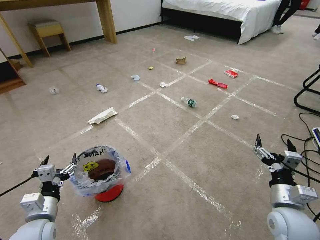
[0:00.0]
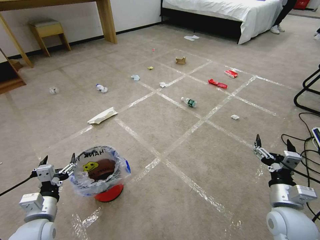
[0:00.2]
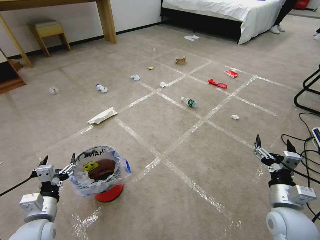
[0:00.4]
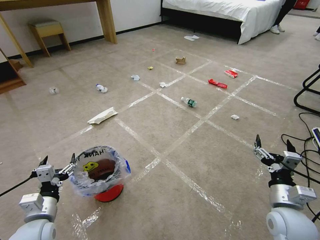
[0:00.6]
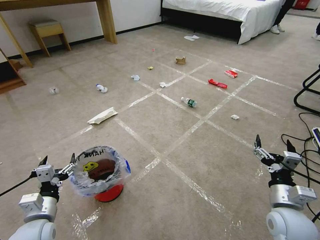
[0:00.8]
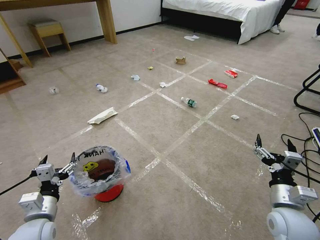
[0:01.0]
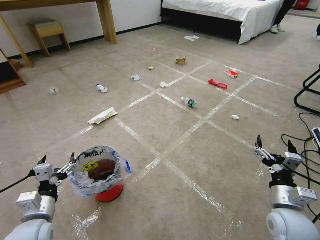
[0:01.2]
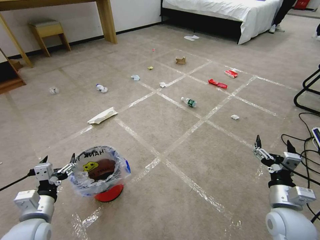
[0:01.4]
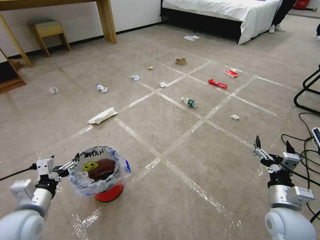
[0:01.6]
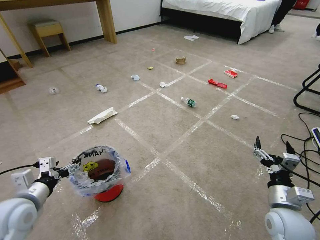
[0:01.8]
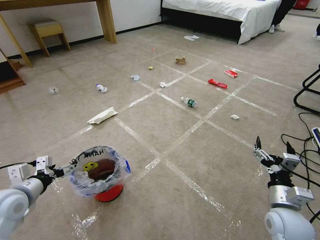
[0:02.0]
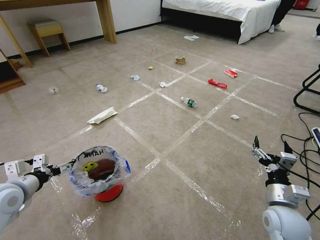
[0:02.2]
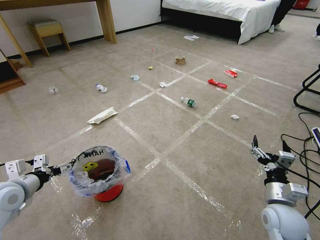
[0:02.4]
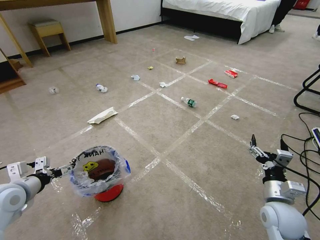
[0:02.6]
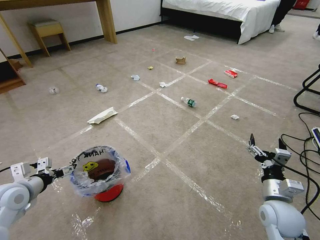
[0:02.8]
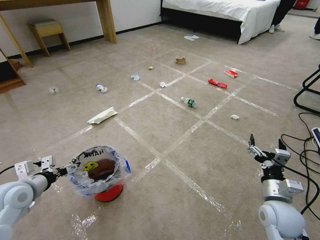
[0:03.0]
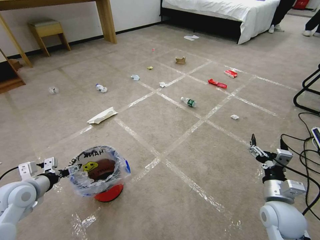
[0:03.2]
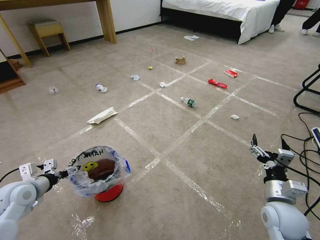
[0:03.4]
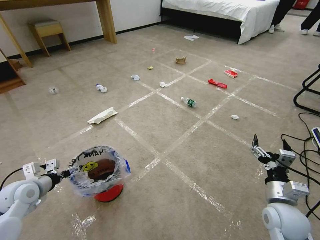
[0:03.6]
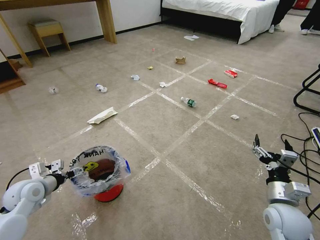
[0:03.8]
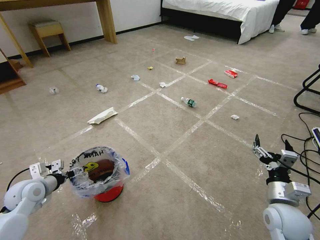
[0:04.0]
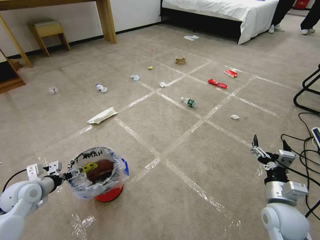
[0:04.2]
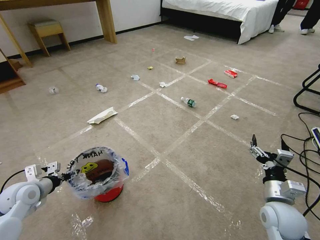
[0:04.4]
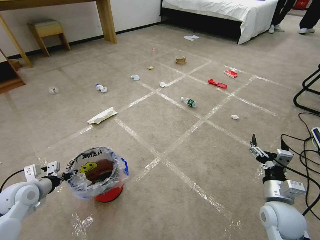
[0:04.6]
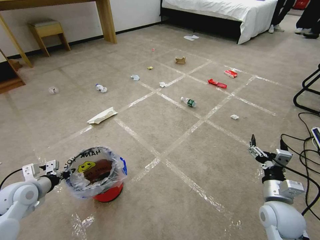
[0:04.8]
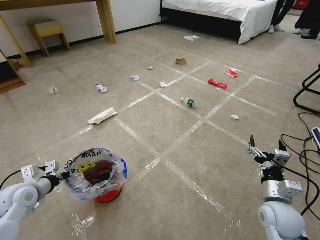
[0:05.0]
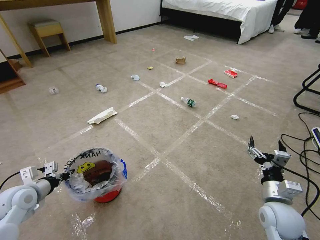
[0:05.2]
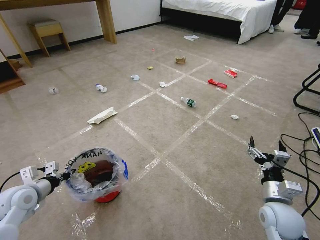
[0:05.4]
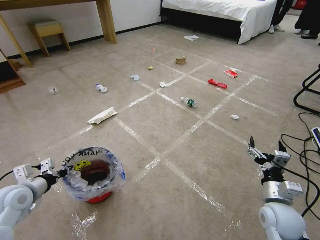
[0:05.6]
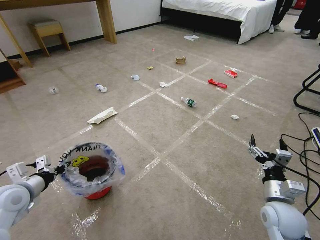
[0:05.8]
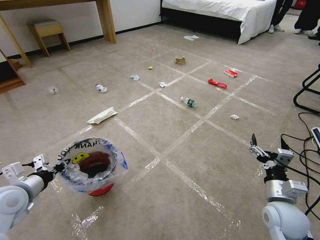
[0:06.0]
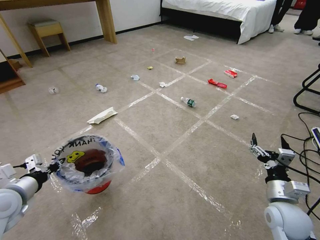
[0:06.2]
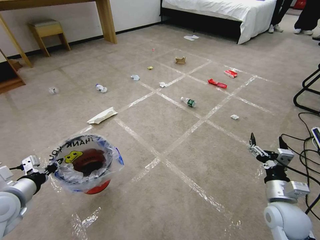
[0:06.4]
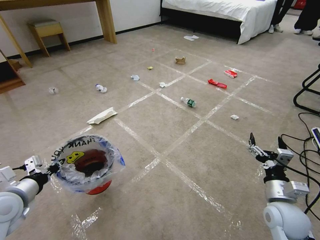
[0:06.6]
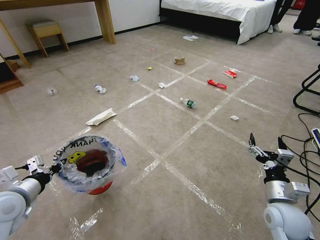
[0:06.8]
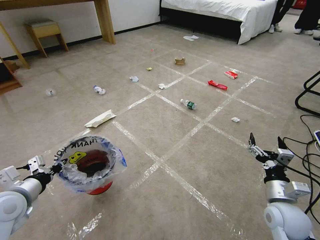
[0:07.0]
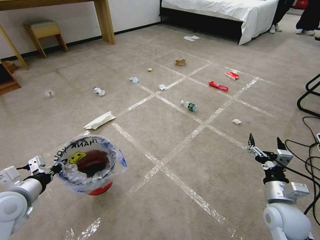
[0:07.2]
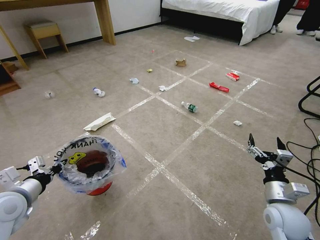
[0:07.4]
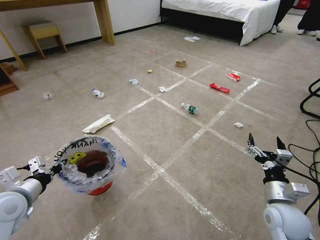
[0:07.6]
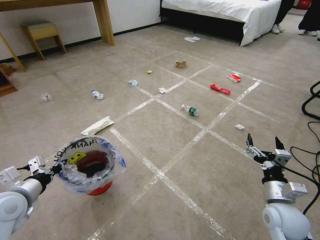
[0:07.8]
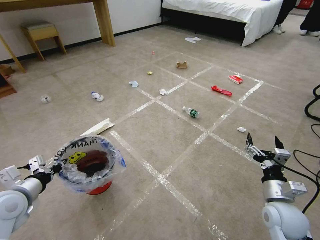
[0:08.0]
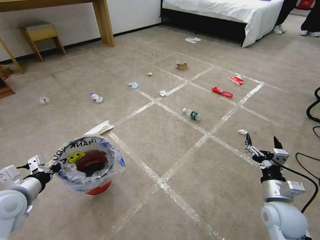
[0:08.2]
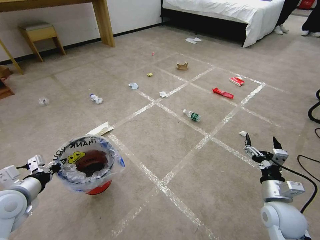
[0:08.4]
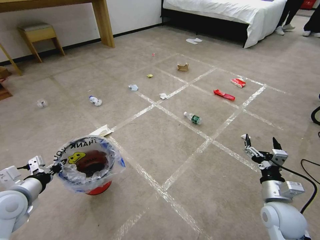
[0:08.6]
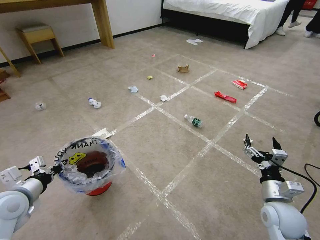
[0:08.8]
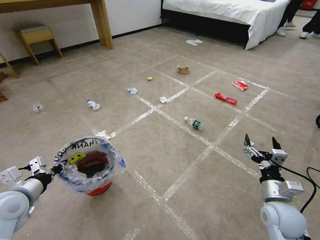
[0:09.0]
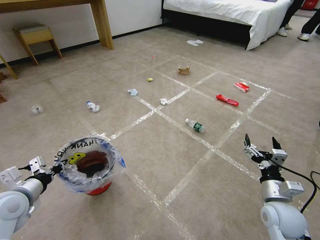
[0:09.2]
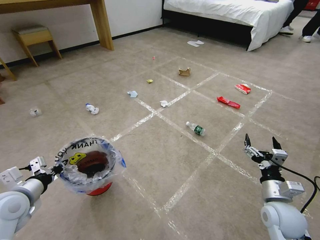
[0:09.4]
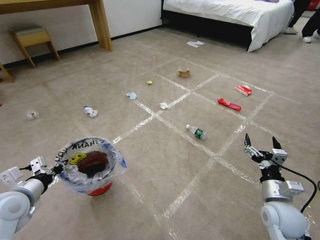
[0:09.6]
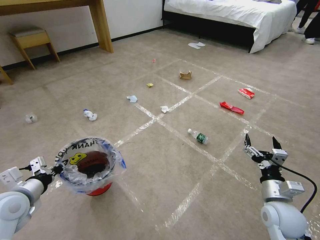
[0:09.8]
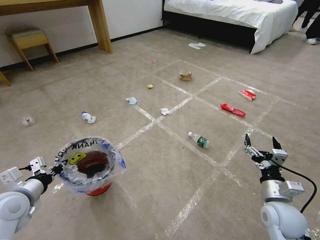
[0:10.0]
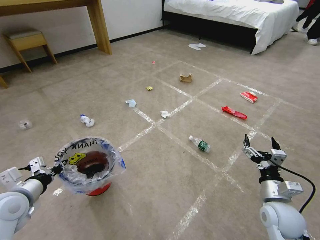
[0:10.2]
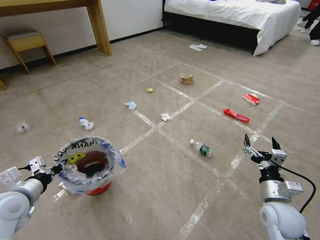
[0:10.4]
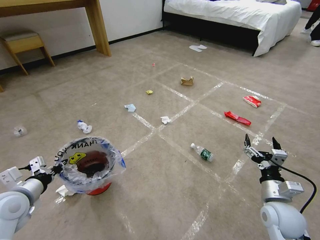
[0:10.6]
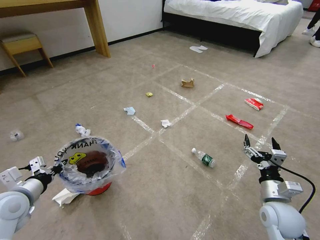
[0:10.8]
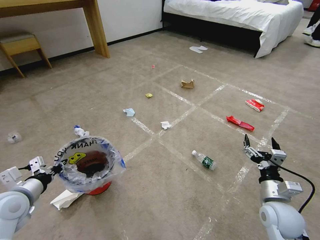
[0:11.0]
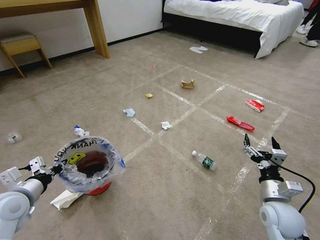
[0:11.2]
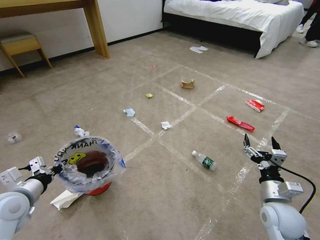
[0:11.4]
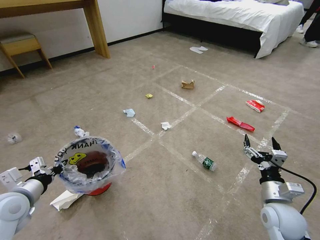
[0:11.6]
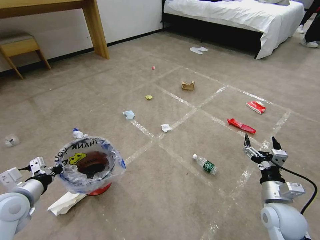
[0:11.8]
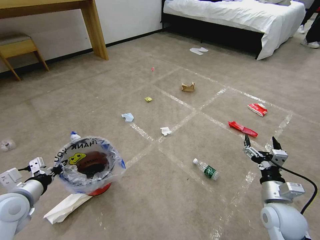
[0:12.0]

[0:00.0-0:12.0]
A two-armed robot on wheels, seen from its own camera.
Task of the whole recording: Pick up the trash bin and place the garbage on the floor into it.
0:01.6 to 0:03.0: The left gripper moves forward and to the left, approximately 10 cm.
0:03.0 to 0:04.4: The left gripper changes place by about 5 cm, and closes its fingers.
0:04.4 to 0:06.0: The left gripper goes approximately 5 cm upward, and closes up.
0:06.0 to 0:07.6: The grippers make only small movements.
0:07.6 to 0:12.0: Neither gripper changes place.

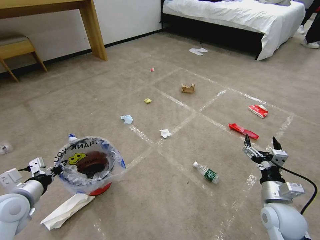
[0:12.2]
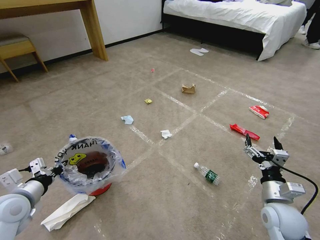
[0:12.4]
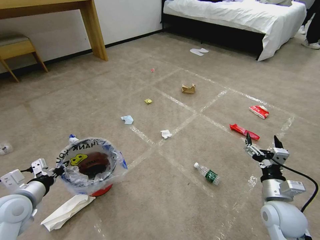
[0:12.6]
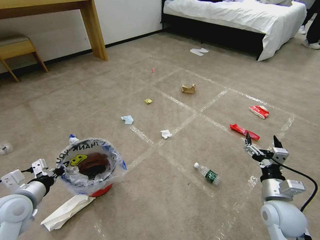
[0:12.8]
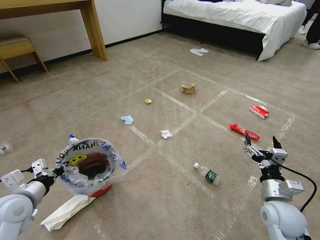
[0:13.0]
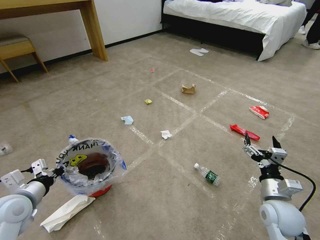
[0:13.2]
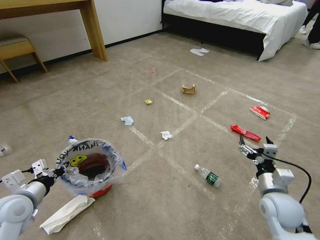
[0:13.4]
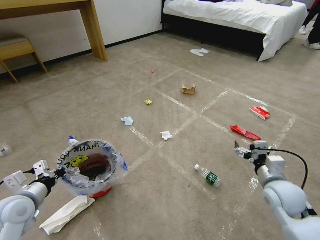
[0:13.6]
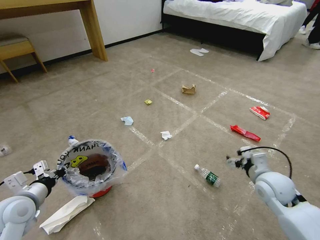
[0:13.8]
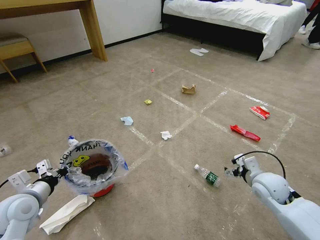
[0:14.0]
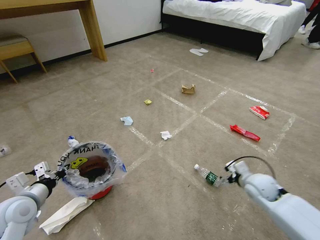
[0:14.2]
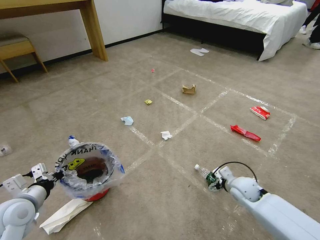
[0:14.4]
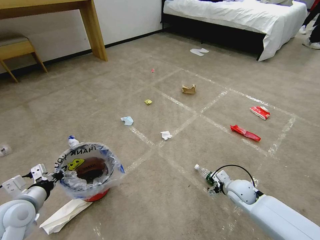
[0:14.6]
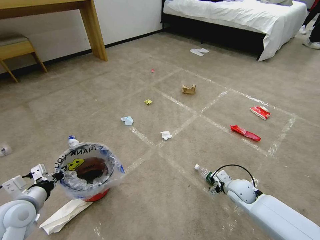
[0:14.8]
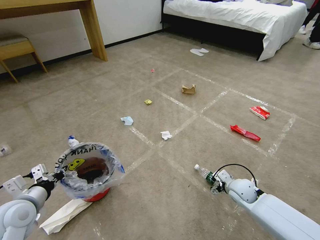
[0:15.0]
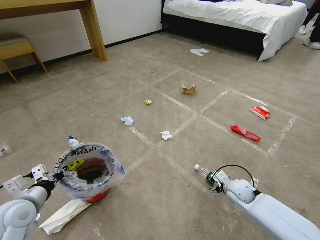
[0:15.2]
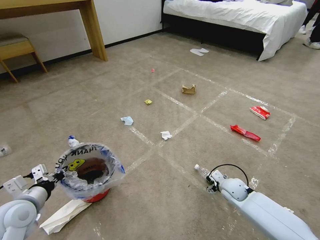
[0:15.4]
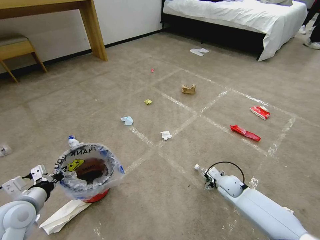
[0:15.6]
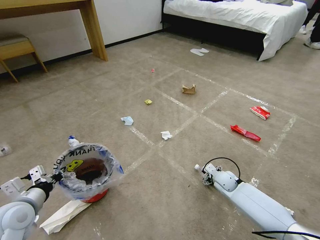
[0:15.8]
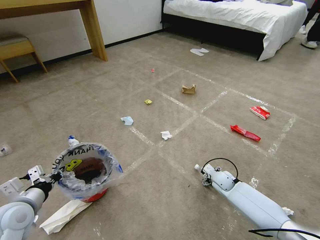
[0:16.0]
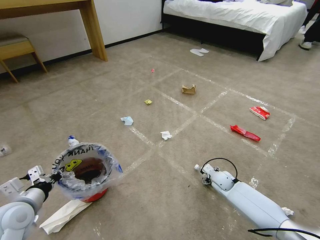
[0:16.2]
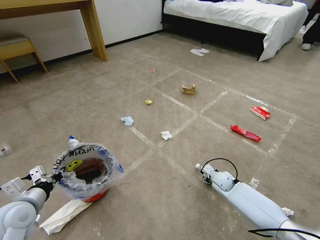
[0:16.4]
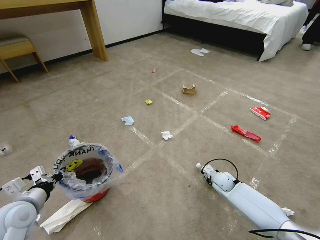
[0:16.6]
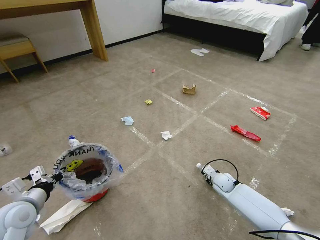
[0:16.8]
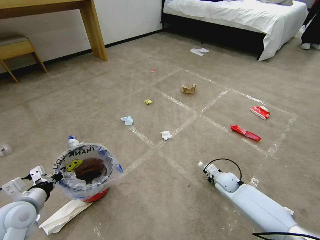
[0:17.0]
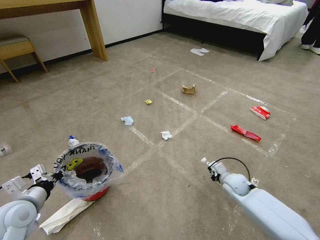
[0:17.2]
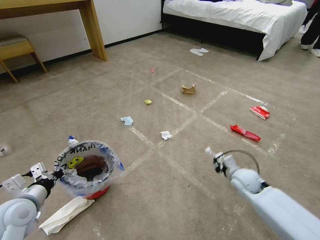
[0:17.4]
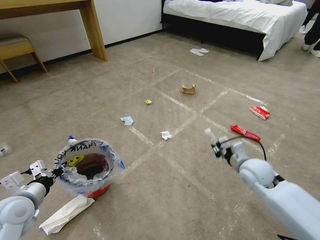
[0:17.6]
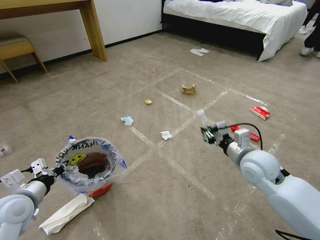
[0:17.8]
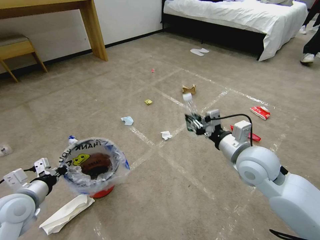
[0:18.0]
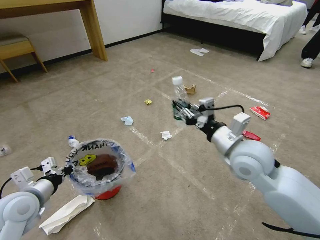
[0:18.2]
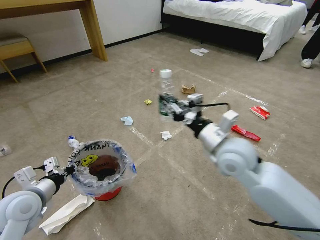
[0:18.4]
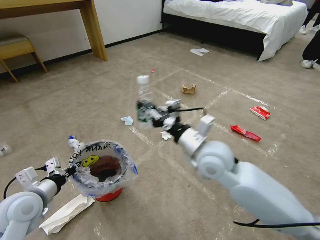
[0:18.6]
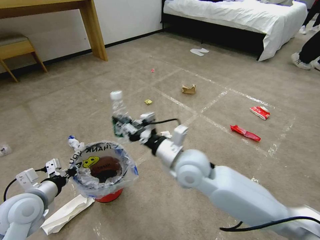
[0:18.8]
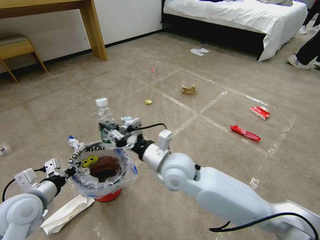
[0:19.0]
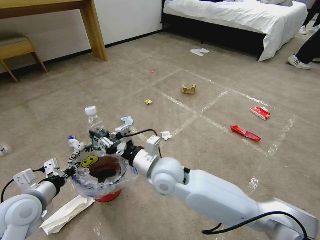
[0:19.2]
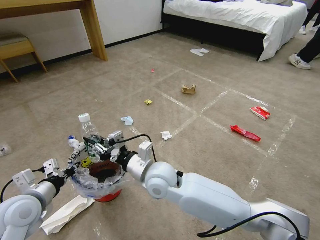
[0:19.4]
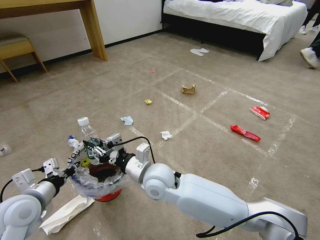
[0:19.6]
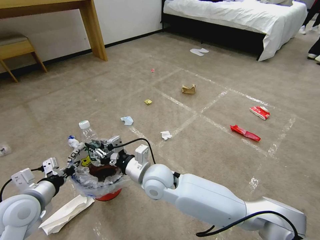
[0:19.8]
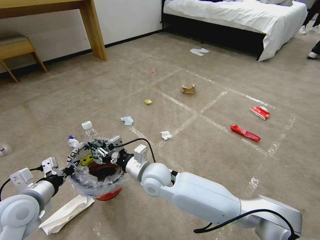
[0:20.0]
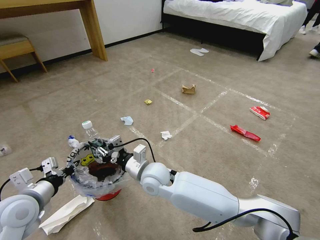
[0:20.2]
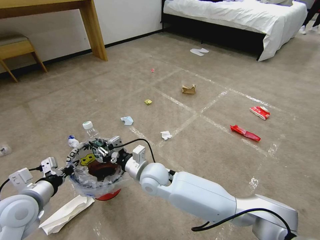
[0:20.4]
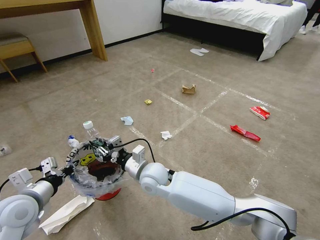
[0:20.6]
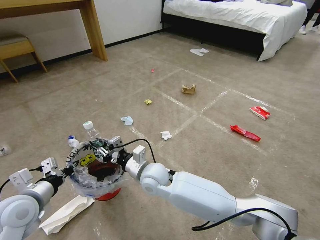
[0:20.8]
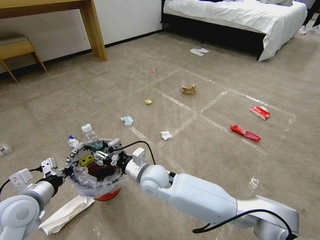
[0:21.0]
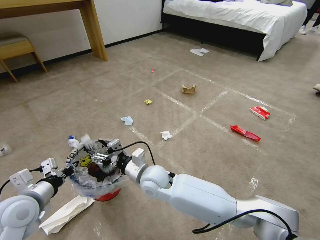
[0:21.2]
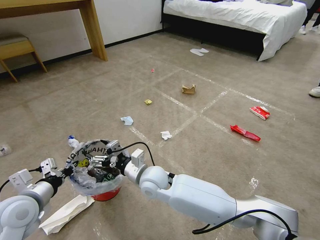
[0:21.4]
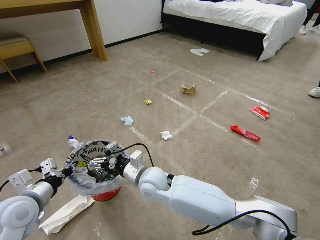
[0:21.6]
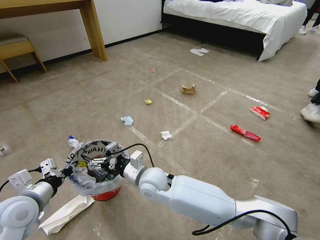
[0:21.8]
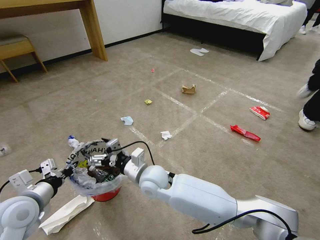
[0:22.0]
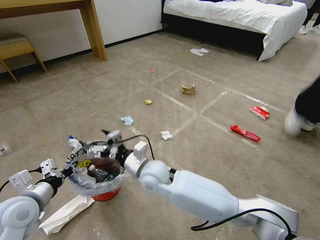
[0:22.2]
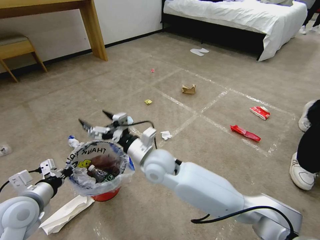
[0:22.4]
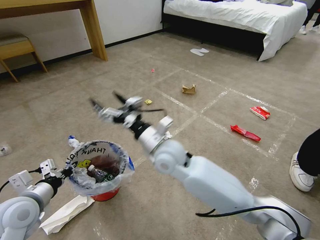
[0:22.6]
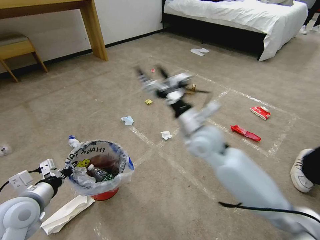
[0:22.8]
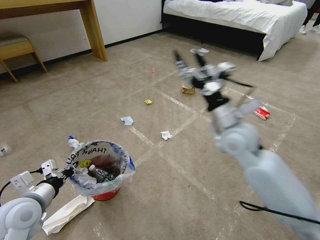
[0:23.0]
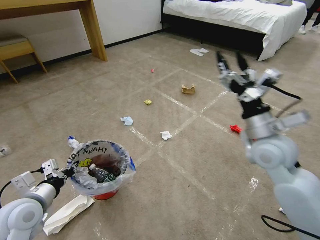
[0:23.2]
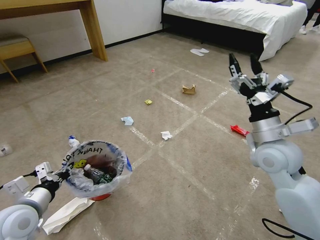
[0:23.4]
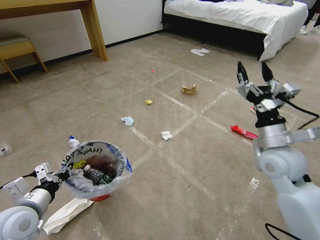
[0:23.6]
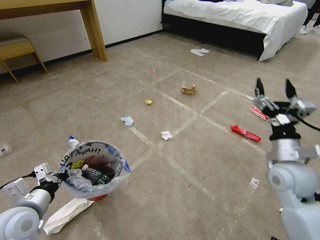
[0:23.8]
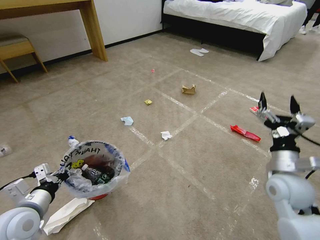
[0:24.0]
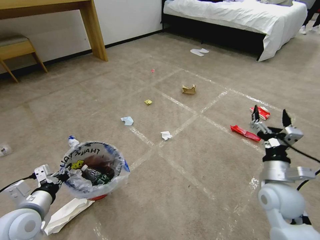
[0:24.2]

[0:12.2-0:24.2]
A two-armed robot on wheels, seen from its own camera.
Task of the whole recording: Pick up the trash bin and place the garbage on the floor into it.
0:12.2 to 0:13.8: The right gripper moves forward, roughly 10 cm.
0:13.8 to 0:15.2: The right gripper is displaced downward by roughly 15 cm.
0:15.2 to 0:16.6: The right gripper goes approximately 10 cm forward and downward, and closes up.
0:16.6 to 0:18.2: The right gripper shifts approximately 35 cm upward.
0:18.2 to 0:19.8: The right gripper goes some 25 cm to the left and downward.
0:19.8 to 0:21.2: The right gripper opens.
0:21.2 to 0:22.6: The right gripper heads upward and to the right, covering approximately 10 cm.
0:22.6 to 0:24.2: The right gripper heads to the right, covering roughly 30 cm.
